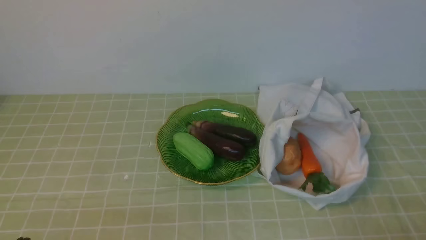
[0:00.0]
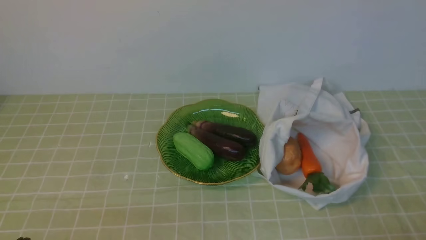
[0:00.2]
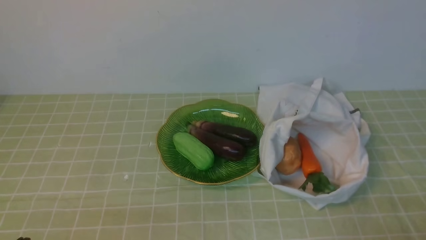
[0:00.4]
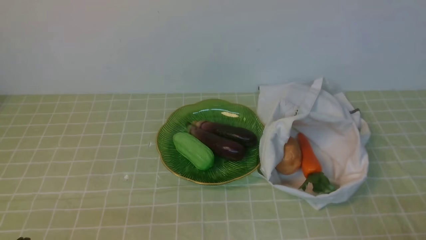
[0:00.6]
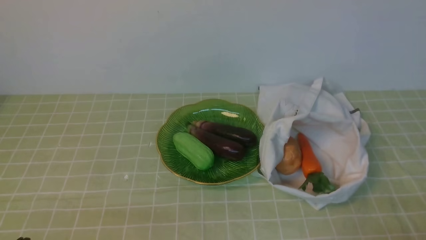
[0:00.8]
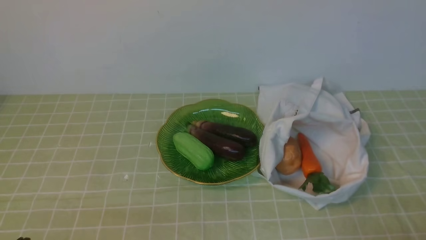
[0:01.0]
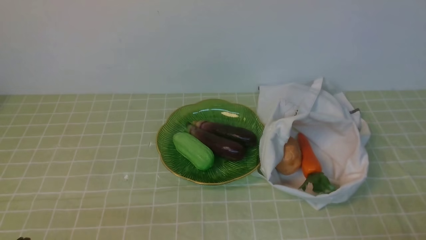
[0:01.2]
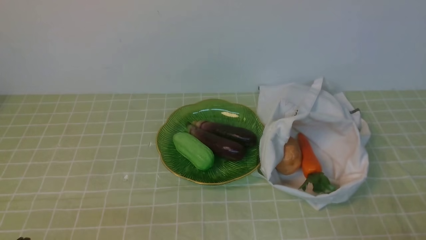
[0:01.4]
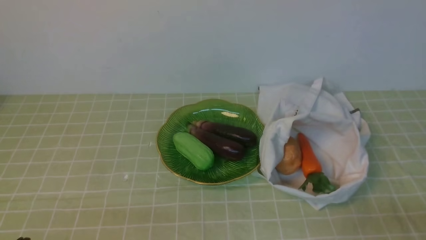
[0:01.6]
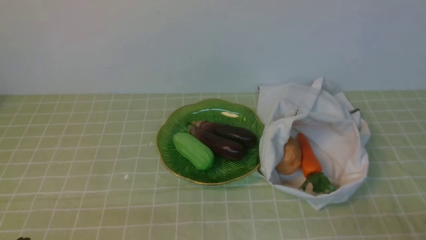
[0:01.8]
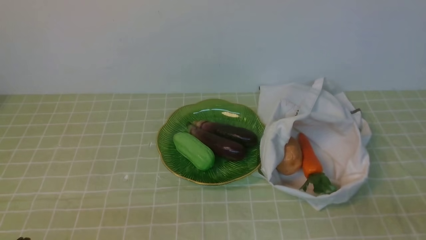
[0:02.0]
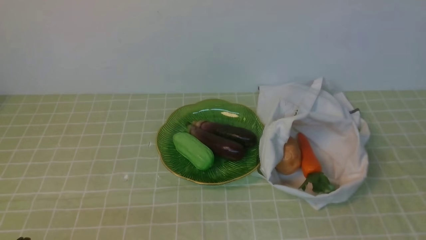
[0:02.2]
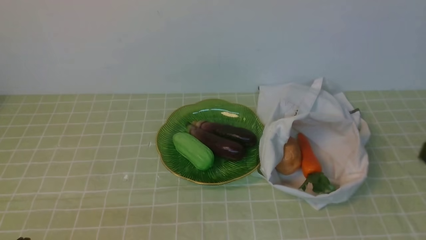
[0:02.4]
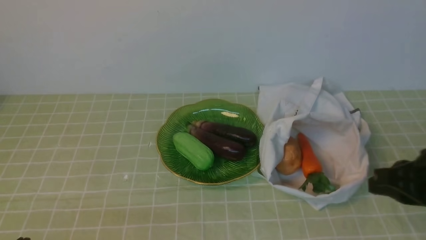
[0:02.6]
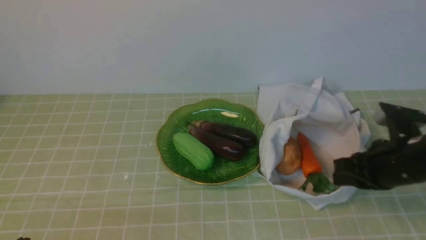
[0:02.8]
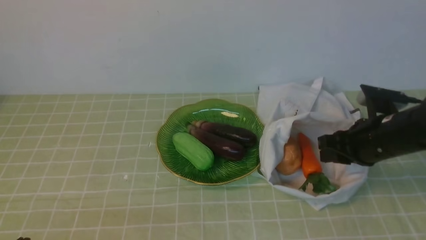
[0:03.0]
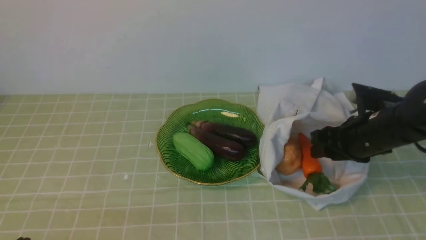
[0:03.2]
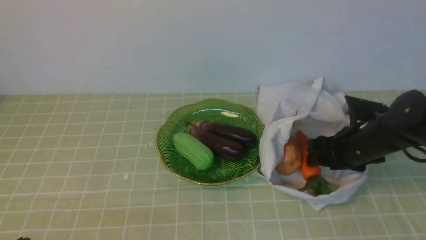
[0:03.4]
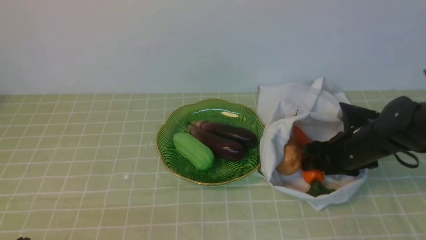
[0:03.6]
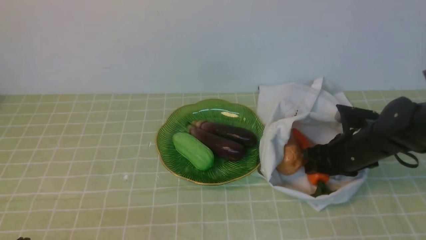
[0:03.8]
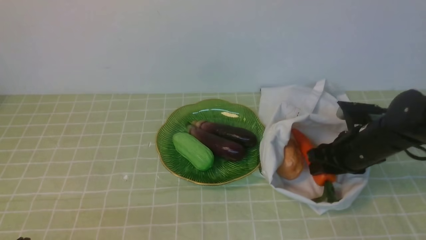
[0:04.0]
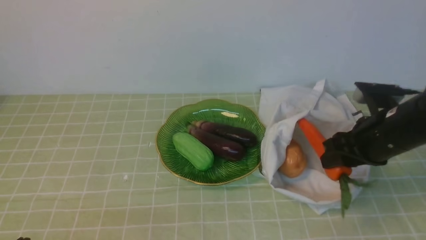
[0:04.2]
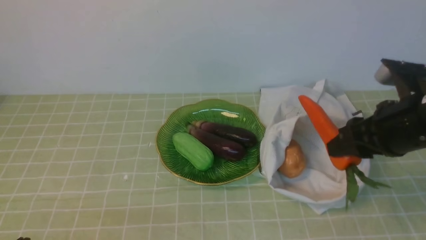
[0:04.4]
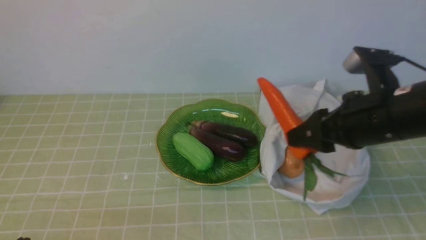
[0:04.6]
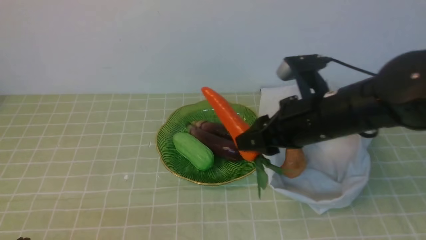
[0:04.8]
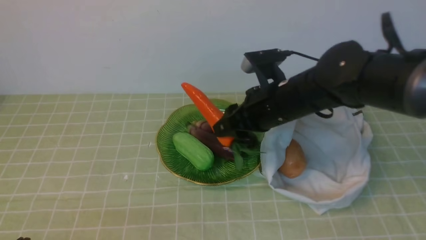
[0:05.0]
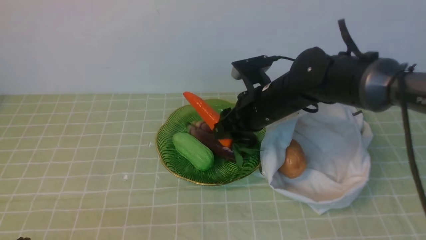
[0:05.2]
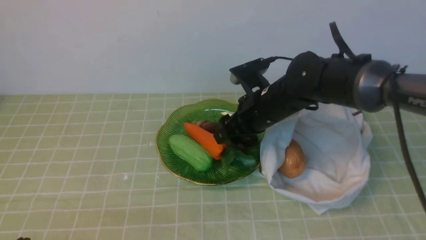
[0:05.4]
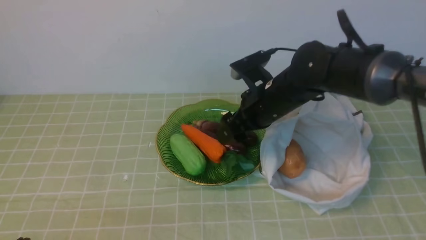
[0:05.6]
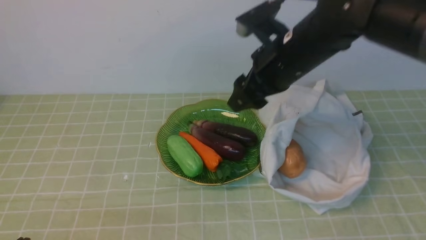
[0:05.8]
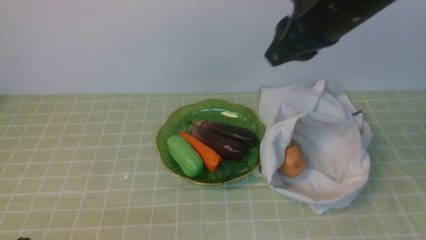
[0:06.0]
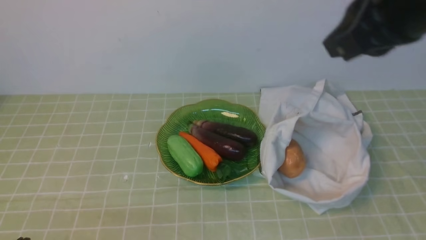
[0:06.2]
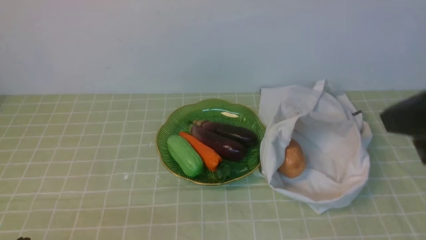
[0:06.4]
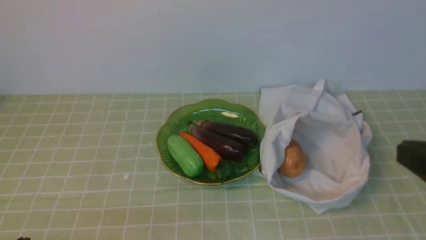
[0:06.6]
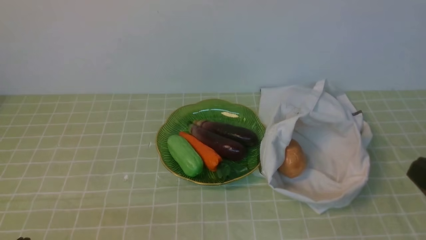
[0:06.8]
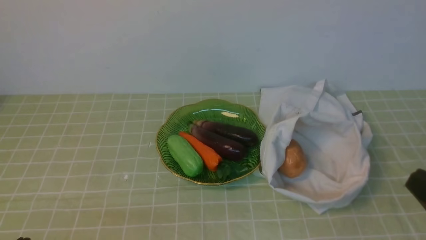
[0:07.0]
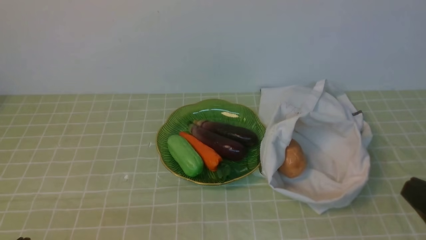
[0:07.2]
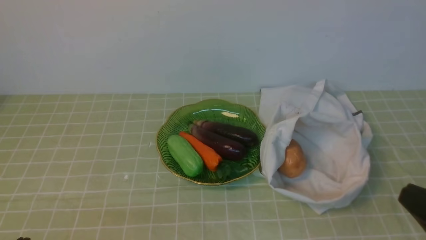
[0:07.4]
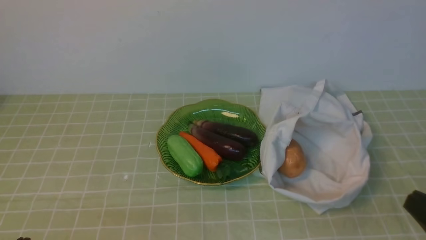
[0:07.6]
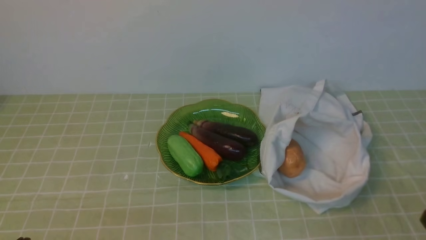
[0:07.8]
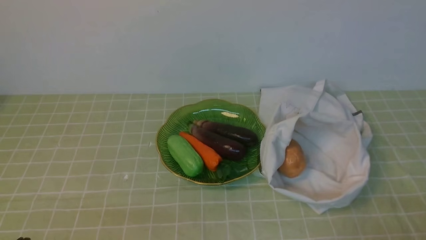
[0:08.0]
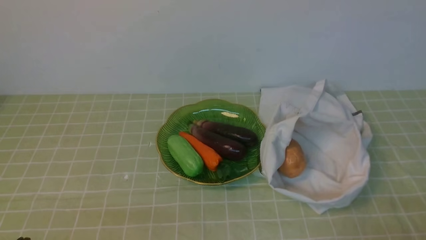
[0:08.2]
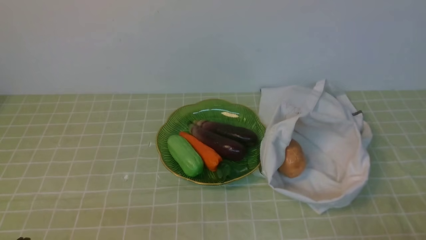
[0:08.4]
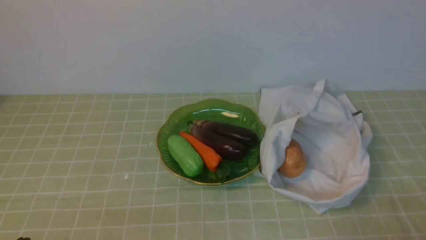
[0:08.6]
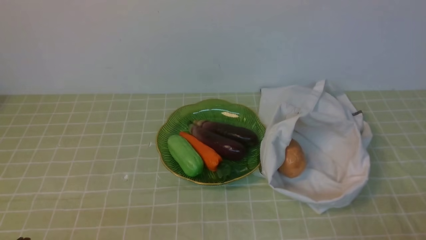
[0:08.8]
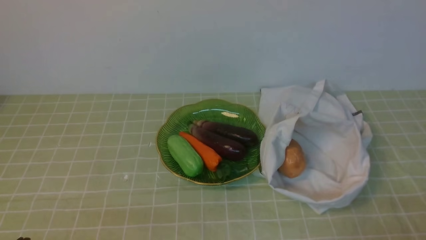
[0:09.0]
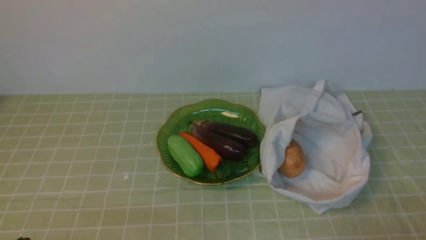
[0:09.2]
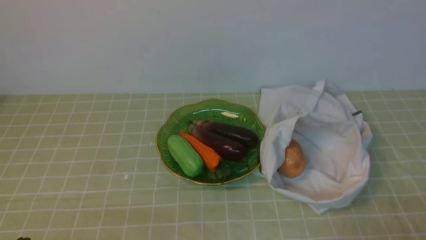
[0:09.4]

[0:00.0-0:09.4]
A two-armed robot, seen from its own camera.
Task of the whole recording: take vegetables from bag on green coffee tablecloth place on plate.
Step, 0:00.0 to 0:03.6: Grasp the carrot with right gripper.
Step, 0:04.0 to 0:05.4: Place the carrot on the plate with right gripper.
0:01.6 to 0:03.2: The right gripper moves forward, some 25 cm, and opens up.
0:03.2 to 0:04.8: The right gripper goes roughly 15 cm to the left and upward.
0:04.8 to 0:06.2: The right gripper shifts about 20 cm upward, backward and to the right, and closes.
0:06.2 to 0:07.8: The right gripper shifts approximately 30 cm downward, backward and to the right.
